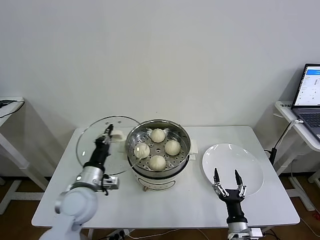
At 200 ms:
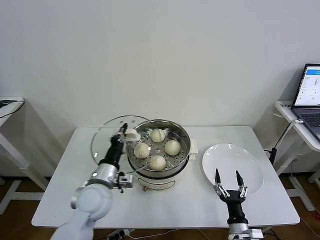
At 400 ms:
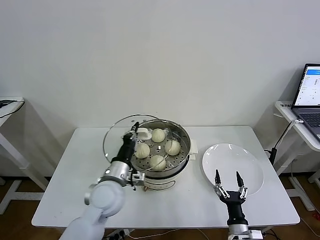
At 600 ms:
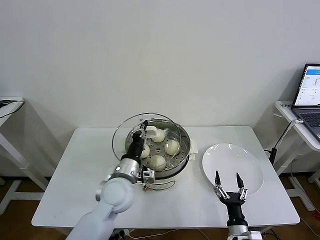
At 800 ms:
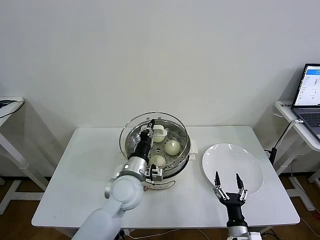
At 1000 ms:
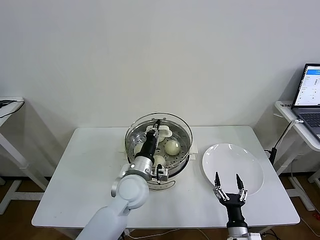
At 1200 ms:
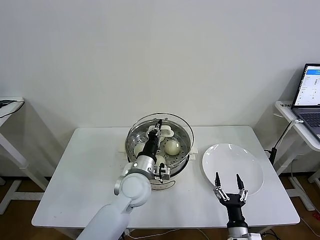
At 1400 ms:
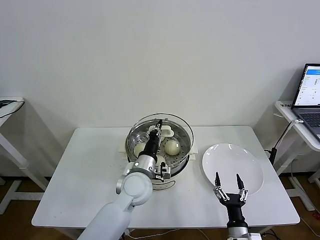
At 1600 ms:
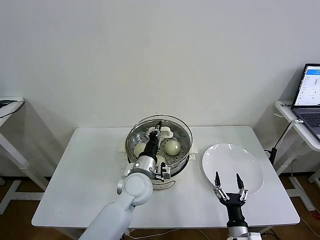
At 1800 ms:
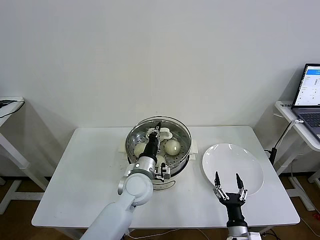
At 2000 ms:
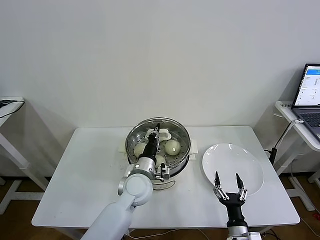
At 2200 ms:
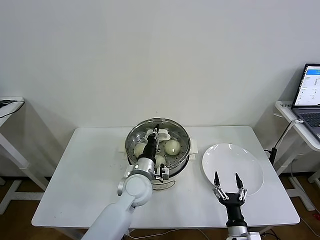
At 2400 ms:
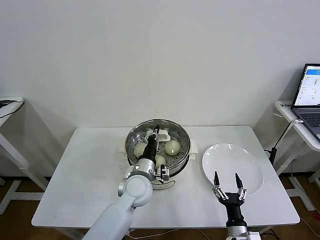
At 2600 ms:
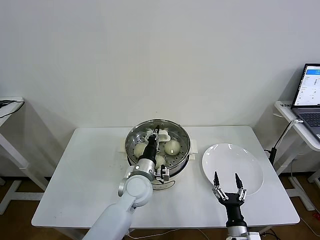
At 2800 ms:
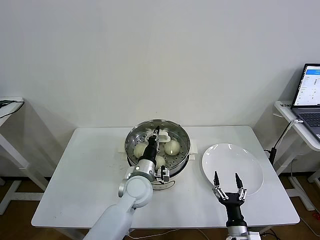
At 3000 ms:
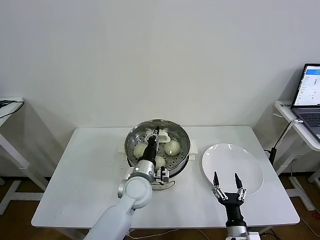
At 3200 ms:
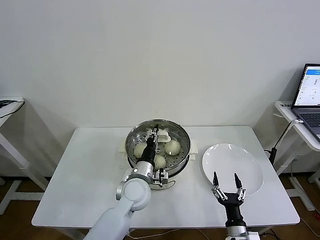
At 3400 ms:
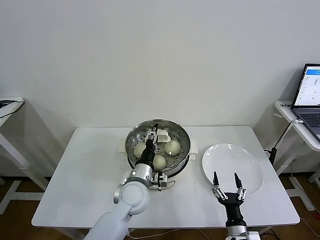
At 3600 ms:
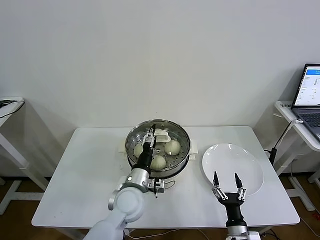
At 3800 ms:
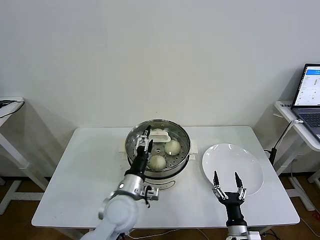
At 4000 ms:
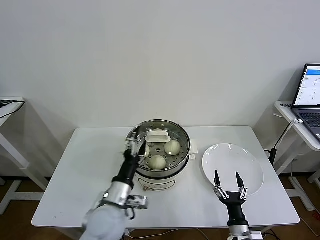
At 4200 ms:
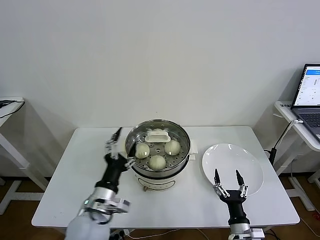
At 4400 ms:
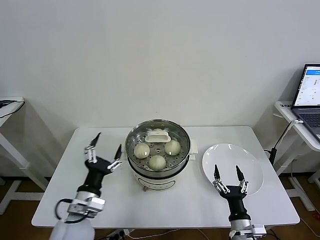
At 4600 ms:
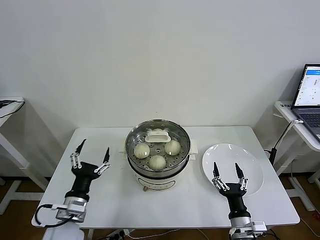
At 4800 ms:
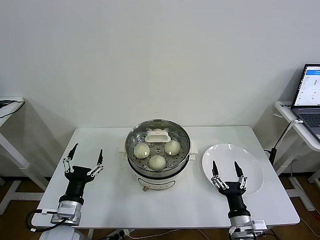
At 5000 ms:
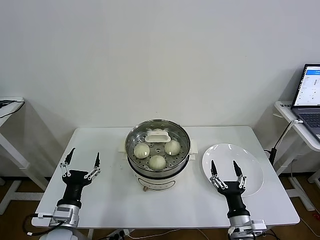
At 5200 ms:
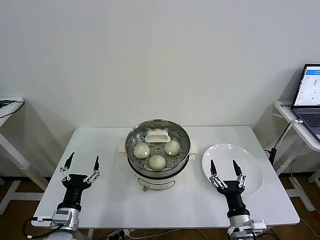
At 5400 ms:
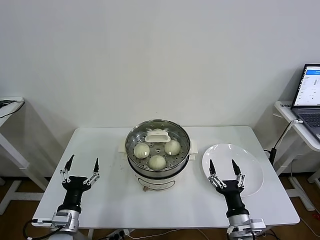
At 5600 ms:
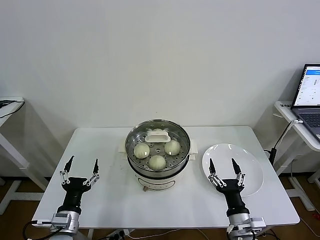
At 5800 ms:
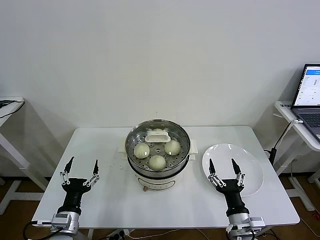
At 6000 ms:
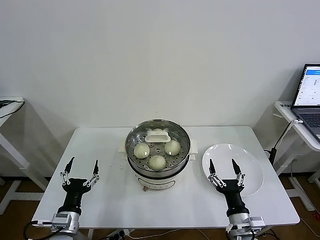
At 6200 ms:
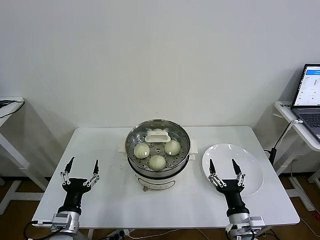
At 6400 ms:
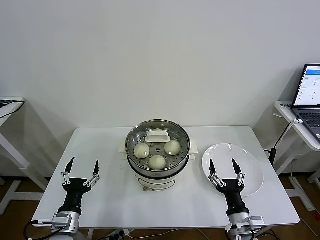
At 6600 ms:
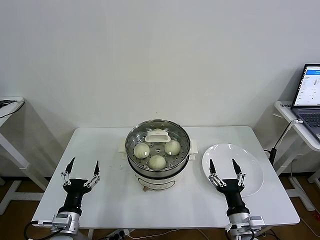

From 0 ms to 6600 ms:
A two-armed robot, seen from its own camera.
Task of the whole recording: take steamed baozi put them in steamer then cover it.
Step, from 0 ms to 3800 ms: Place the pot lid on the steamer with left gripper.
From 0 ms to 1600 ms: The left gripper moves to the right, roughly 15 cm.
From 1600 ms to 3200 ms: The grippers make only small movements.
From 3200 ms to 5000 ms: The left gripper moves to the left and backward, roughly 25 cm, and opens its fingers; the right gripper goes approximately 10 cm upward.
From 5000 ms to 6600 ms: The grippers move only a little.
